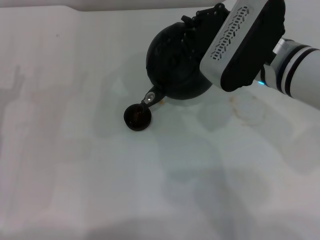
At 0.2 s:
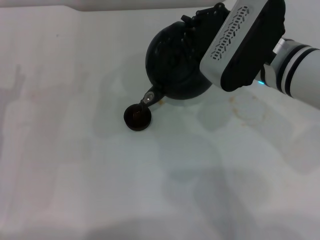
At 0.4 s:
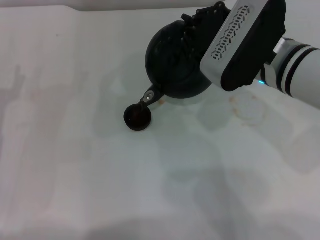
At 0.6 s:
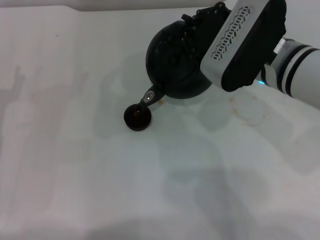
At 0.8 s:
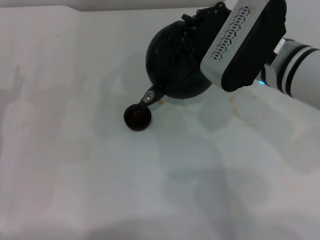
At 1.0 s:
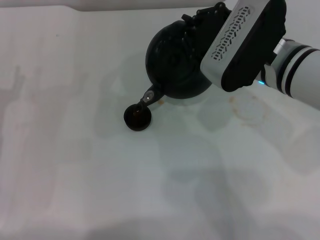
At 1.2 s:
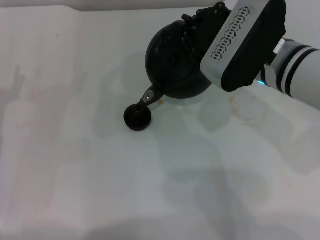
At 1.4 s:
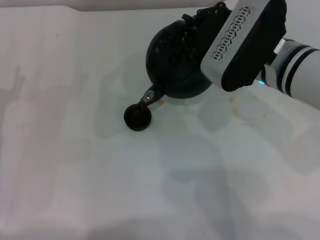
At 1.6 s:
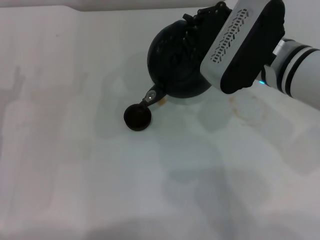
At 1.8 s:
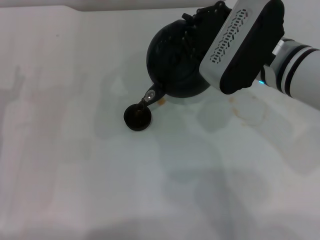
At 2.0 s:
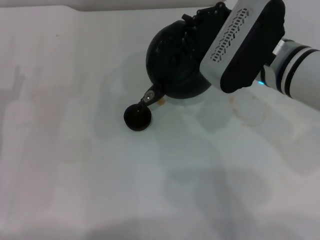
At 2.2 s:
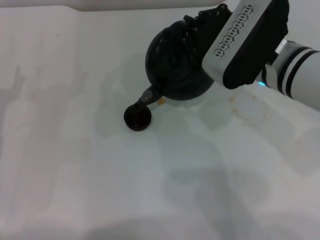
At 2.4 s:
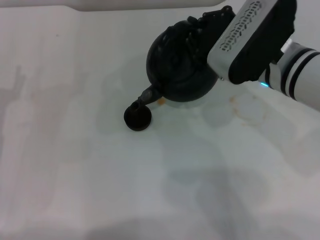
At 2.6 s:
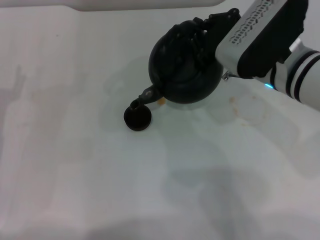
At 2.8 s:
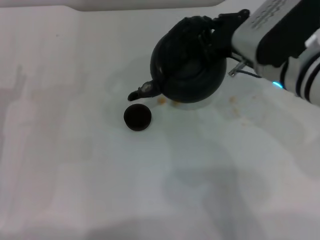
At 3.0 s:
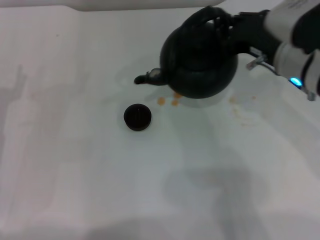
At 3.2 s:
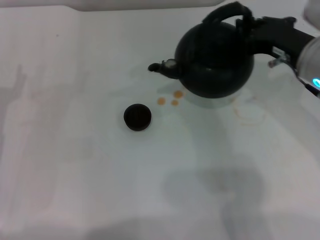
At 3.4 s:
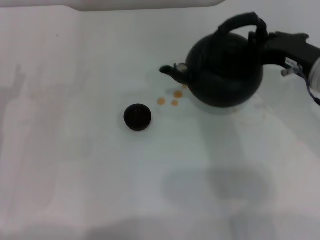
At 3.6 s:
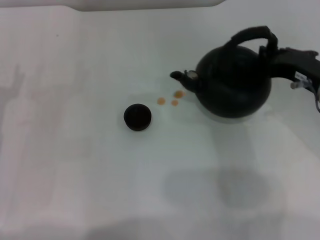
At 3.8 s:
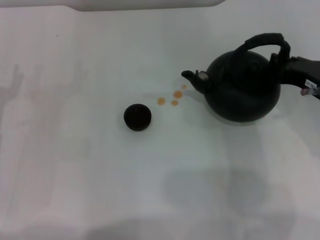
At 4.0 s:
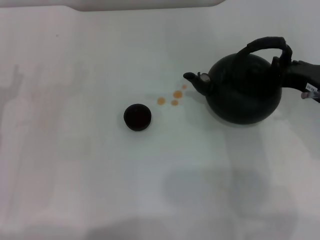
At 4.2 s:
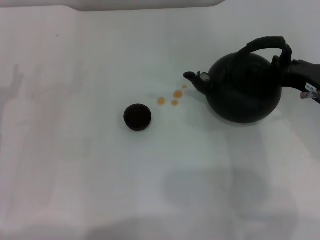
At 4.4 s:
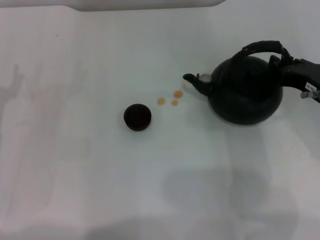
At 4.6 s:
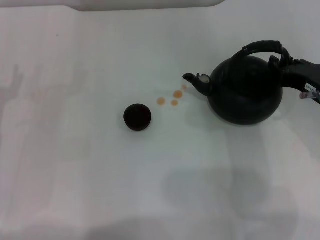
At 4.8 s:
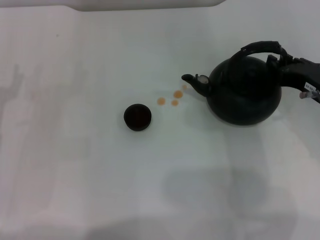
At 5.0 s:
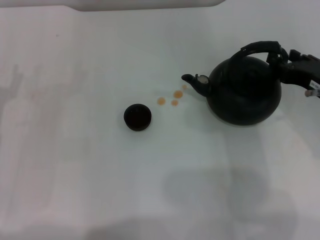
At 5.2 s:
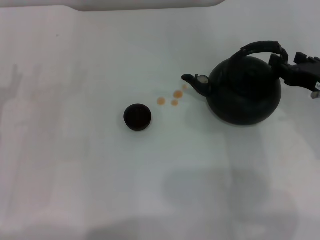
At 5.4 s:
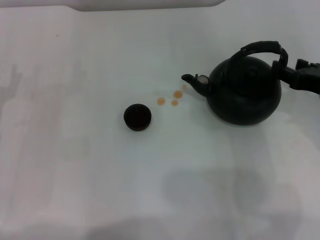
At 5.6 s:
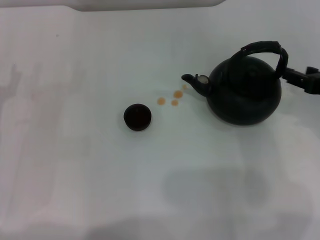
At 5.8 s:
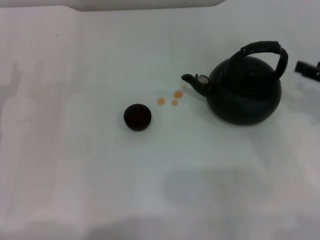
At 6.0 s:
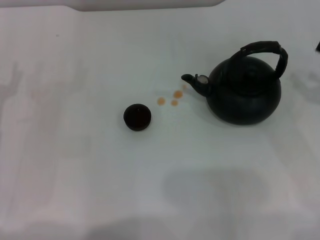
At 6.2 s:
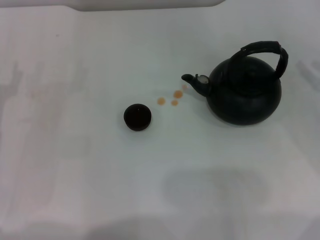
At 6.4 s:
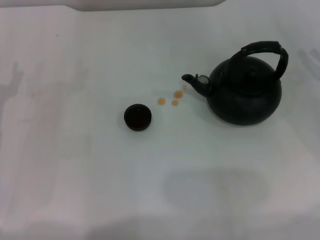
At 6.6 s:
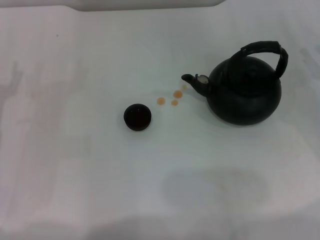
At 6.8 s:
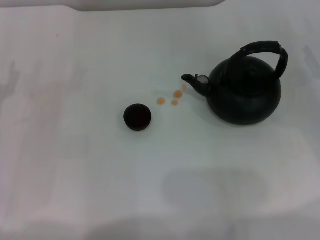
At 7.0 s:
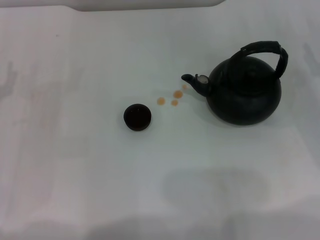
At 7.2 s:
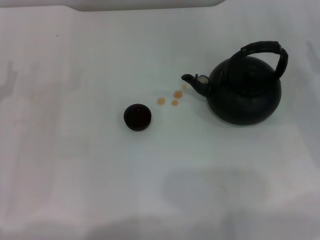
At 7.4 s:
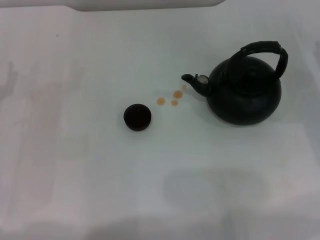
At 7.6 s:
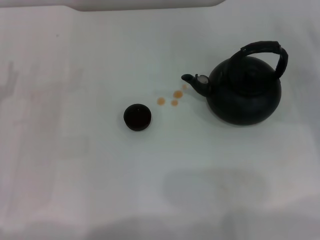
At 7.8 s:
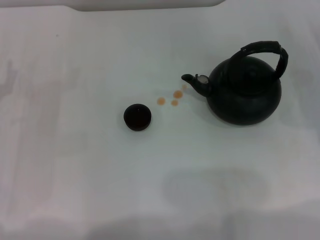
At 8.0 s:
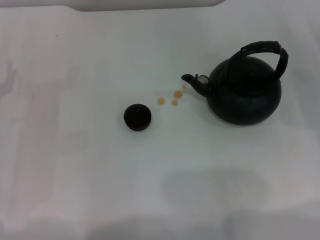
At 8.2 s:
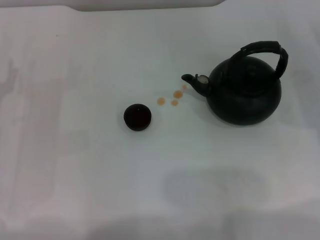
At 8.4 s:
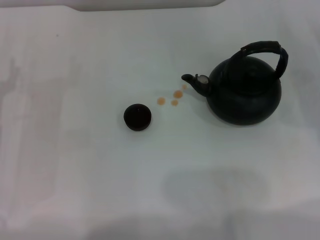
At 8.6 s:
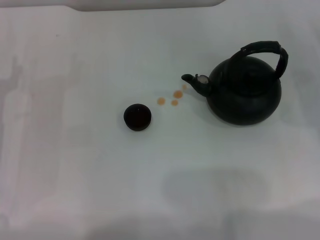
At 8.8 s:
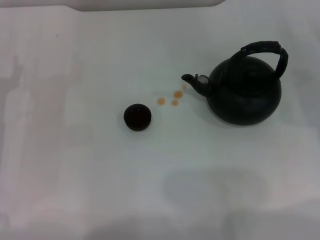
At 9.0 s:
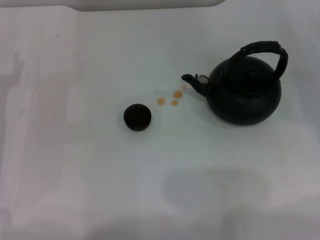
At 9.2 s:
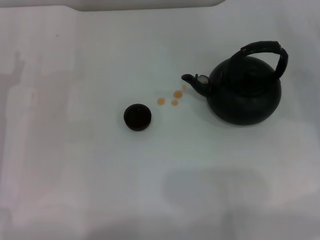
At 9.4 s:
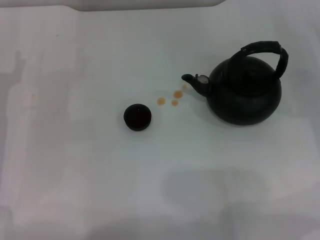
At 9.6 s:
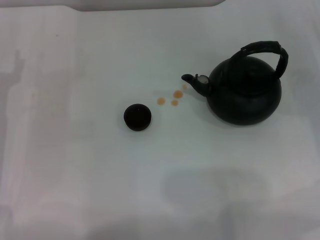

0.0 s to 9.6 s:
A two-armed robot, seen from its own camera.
Task of the whole recording: Grasp the handle of the teapot with one hand and pour tea into the teacup.
Step, 0.0 to 2.8 s: Pour tea into the teacup with the right gripper.
Step, 3.2 to 5.6 s: Put down the teapot with the right gripper.
0.0 to 1.6 s: Neither gripper changes place.
1.6 to 3.2 s: The right gripper travels to the right by roughly 5 cm.
3.2 to 4.8 s: The right gripper moves about 5 cm.
4.8 to 6.4 s: The right gripper moves to the right, some 10 cm, and opens its fingers.

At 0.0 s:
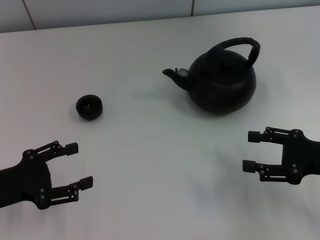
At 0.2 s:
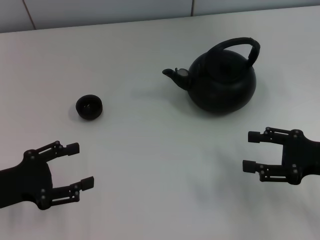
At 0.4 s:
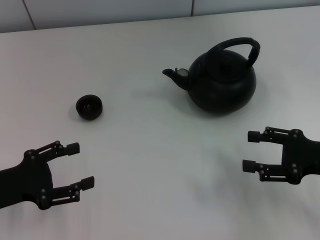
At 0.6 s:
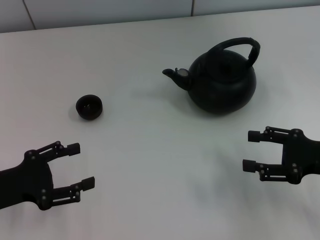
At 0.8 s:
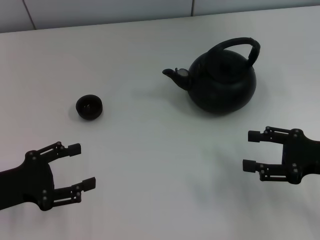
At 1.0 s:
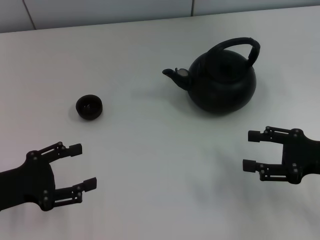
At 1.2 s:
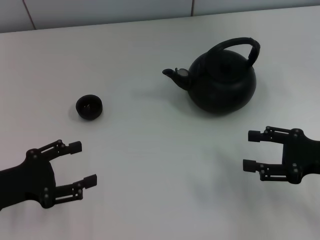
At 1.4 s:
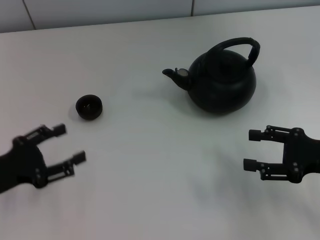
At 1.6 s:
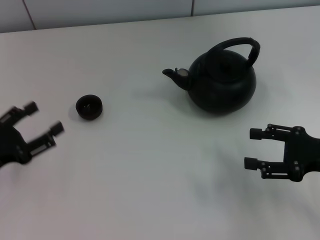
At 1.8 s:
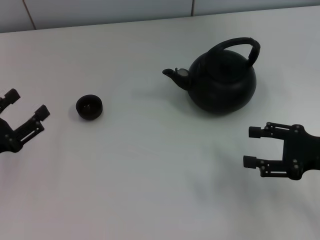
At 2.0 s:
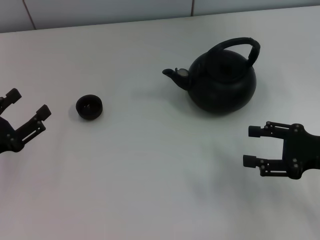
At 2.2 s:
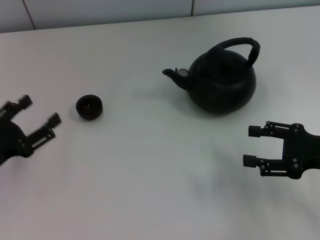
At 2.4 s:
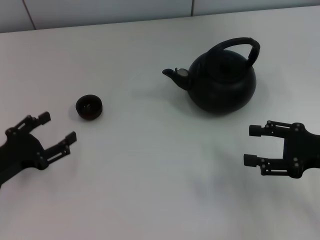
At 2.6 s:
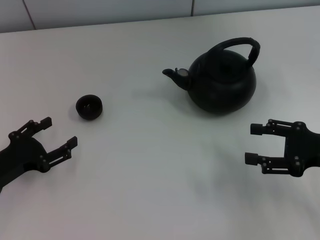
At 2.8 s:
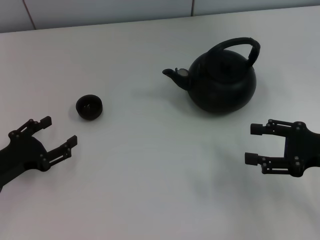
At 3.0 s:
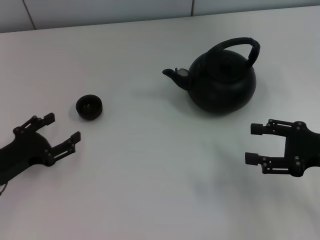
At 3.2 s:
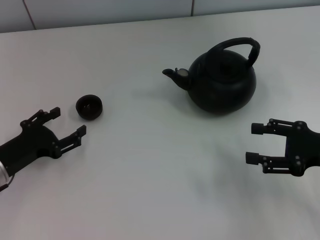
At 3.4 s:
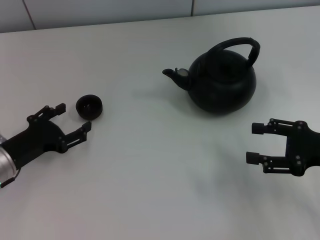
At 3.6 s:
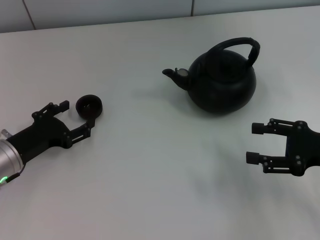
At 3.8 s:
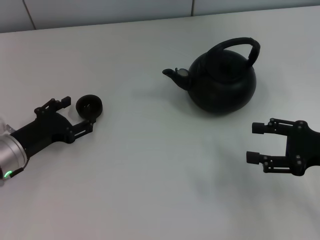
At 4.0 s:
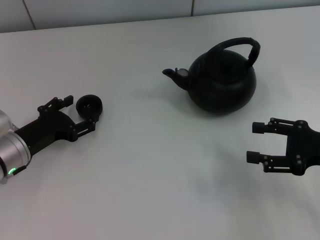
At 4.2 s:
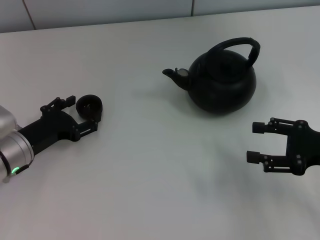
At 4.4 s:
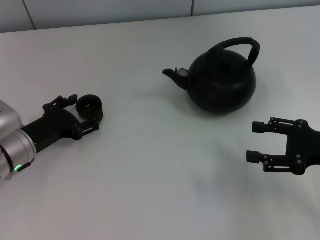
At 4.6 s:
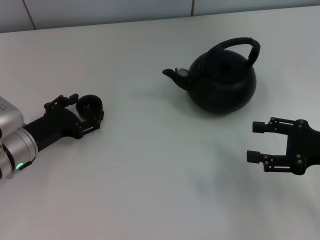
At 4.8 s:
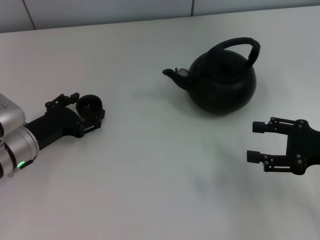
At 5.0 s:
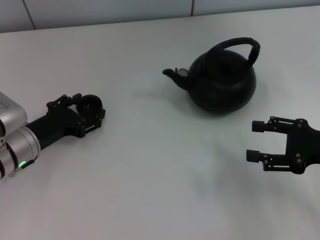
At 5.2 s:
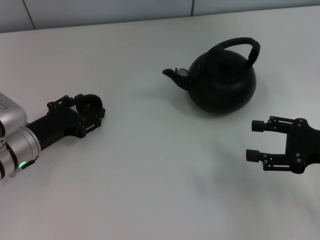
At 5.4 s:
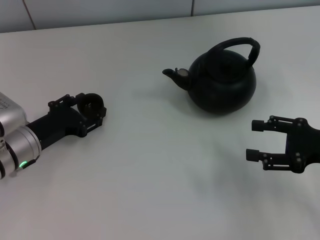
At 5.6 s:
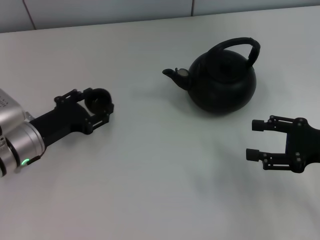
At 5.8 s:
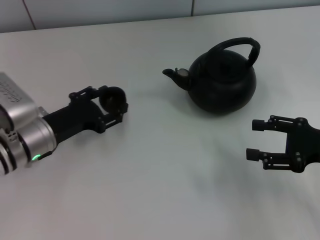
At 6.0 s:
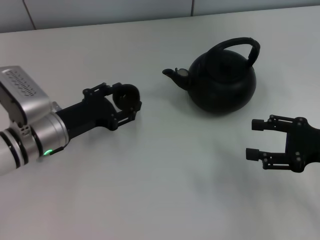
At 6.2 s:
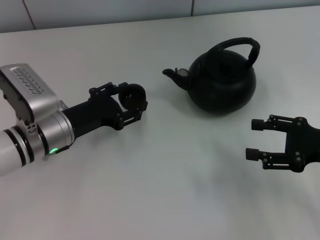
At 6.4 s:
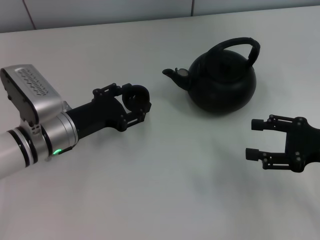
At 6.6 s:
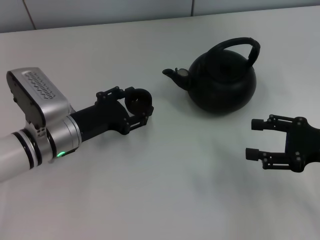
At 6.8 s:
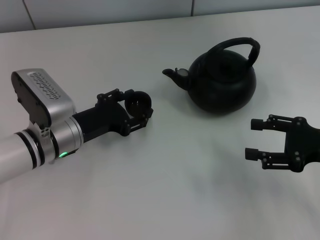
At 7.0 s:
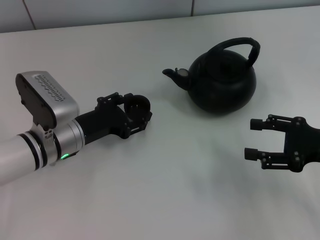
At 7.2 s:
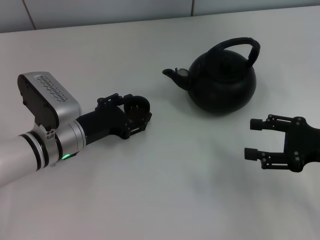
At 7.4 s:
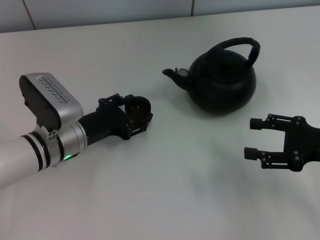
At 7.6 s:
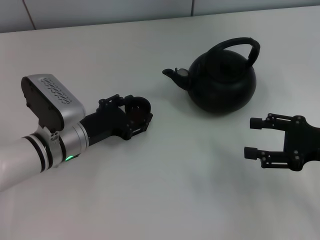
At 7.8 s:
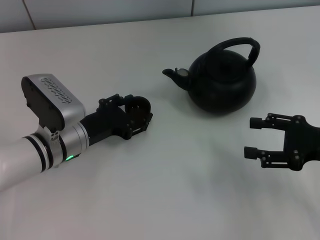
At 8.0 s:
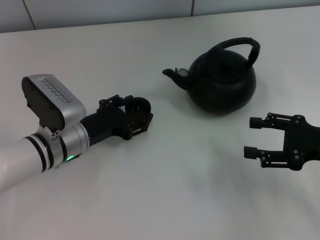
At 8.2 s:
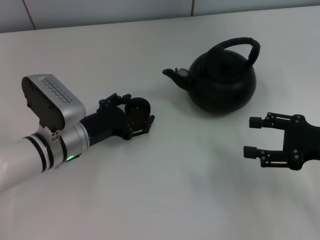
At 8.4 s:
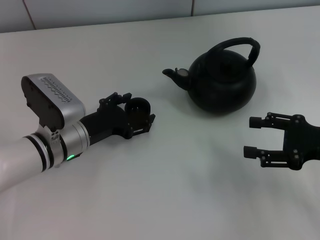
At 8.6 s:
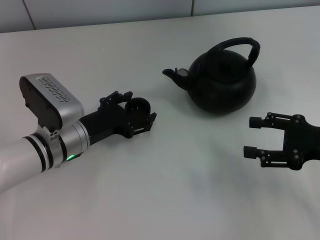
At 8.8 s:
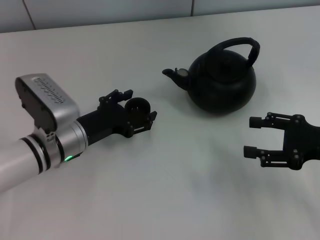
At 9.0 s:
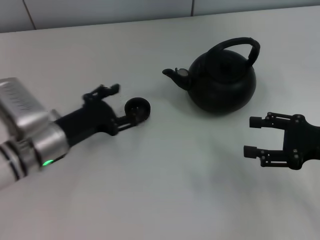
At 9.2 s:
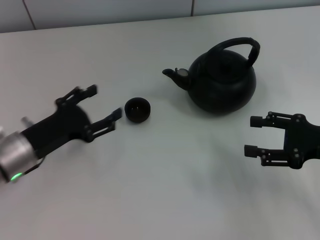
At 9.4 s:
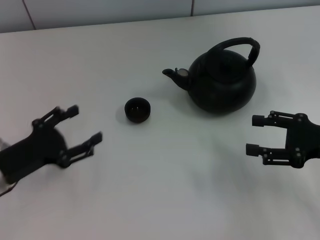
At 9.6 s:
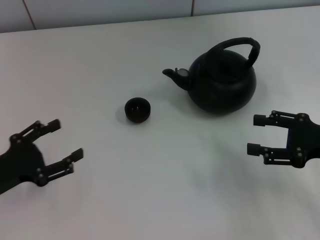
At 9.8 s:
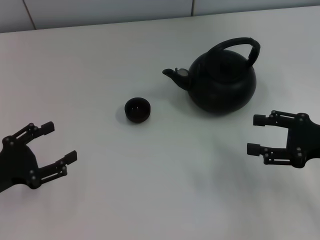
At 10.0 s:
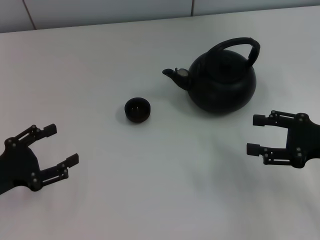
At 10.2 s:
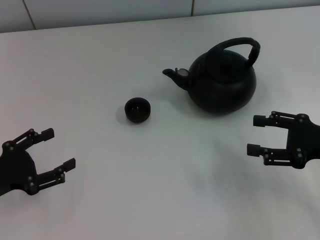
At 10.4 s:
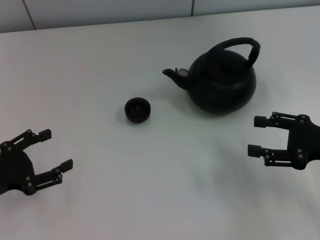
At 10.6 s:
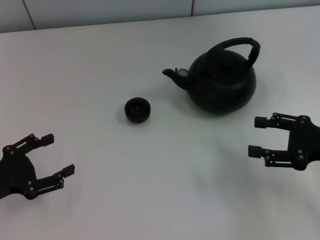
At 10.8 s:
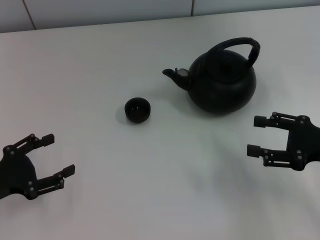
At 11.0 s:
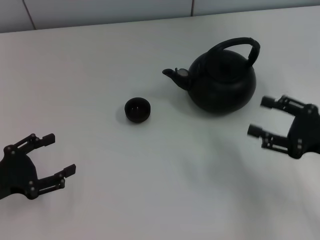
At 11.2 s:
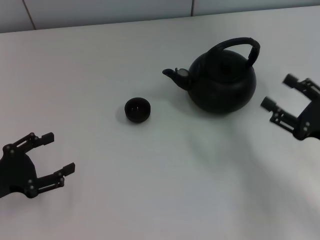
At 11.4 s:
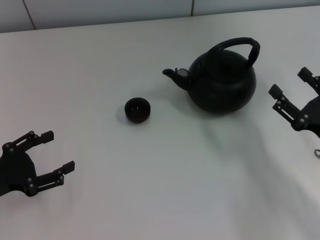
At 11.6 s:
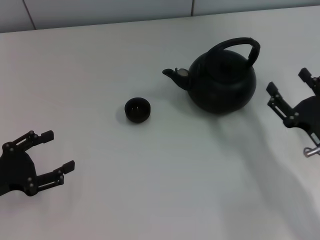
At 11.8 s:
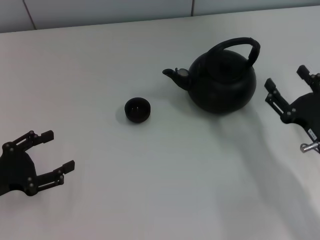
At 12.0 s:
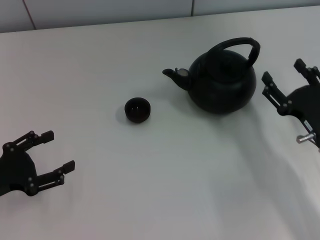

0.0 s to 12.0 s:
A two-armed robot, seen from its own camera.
Task of the whole recording: Grasp the handle of the teapot with one hand and pour tea into the teacup.
Step, 0.0 to 5.4 s: Pick up the teacup with the left gripper.
Step, 5.8 to 9.0 s: Place the teacup in the center of view with the left gripper.
1.6 to 3.0 s: There are only small adjustments of the grippers.
3.0 to 4.4 s: The left gripper is displaced forward and to the right by about 10 cm.
4.4 to 6.0 s: The left gripper travels to the right by roughly 5 cm, and closes.
6.0 to 7.6 s: The grippers stay close to where they were, moving slightly.
7.6 to 9.0 s: The left gripper opens.
9.0 to 10.4 s: The left gripper shifts some 15 cm to the left and backward.
10.4 to 12.0 s: The right gripper shifts some 10 cm downward and to the left.
